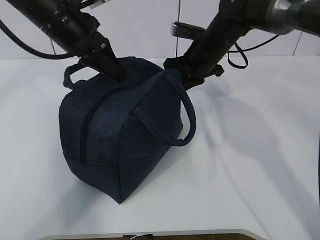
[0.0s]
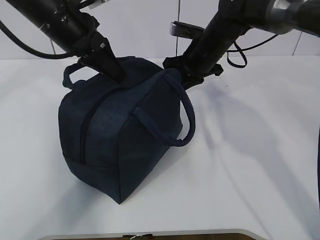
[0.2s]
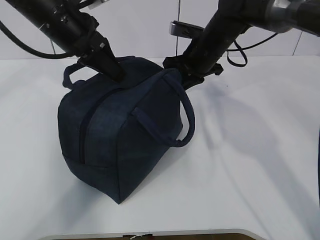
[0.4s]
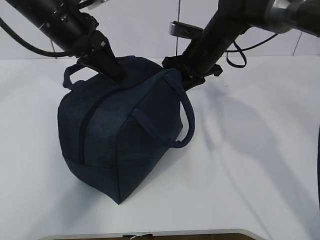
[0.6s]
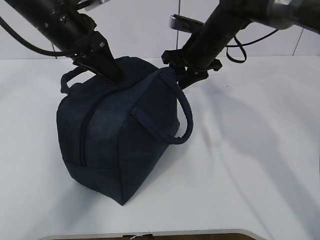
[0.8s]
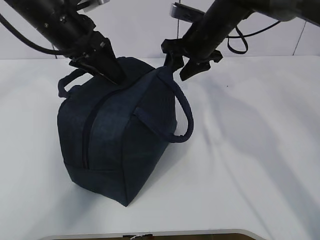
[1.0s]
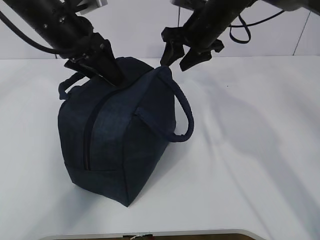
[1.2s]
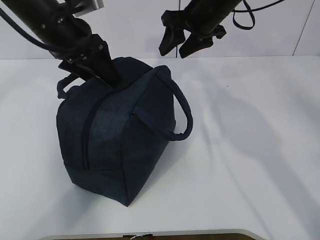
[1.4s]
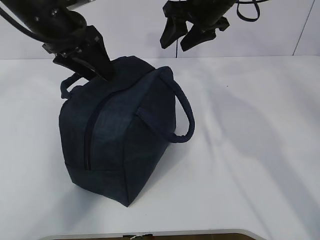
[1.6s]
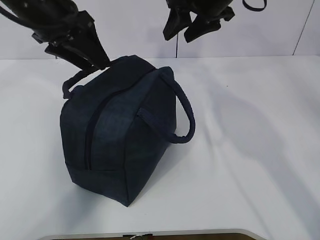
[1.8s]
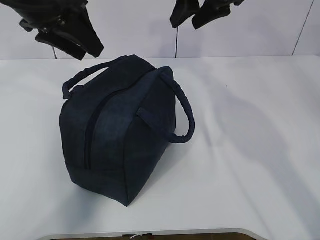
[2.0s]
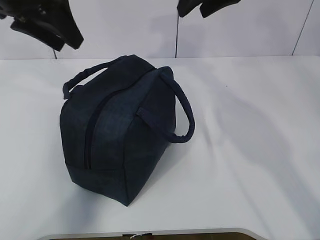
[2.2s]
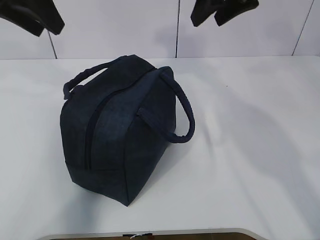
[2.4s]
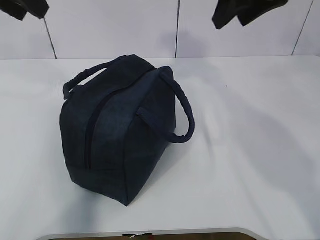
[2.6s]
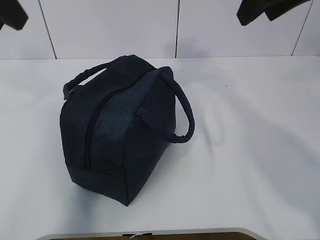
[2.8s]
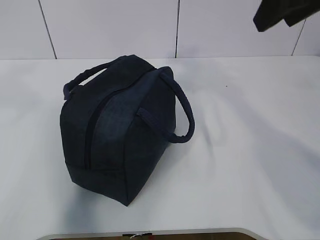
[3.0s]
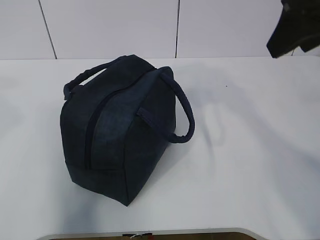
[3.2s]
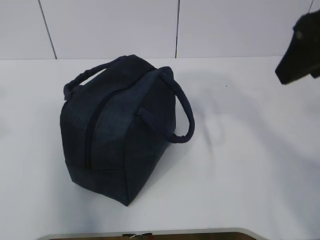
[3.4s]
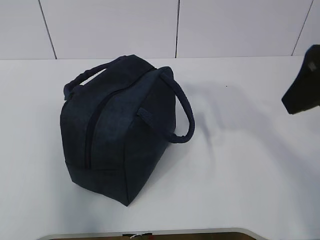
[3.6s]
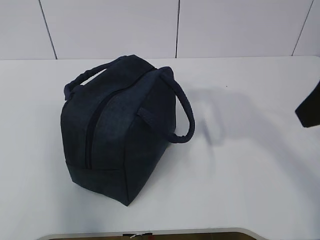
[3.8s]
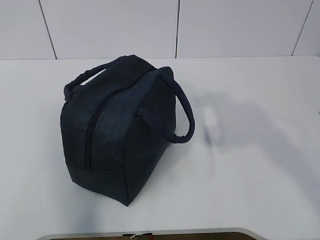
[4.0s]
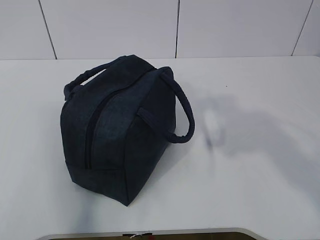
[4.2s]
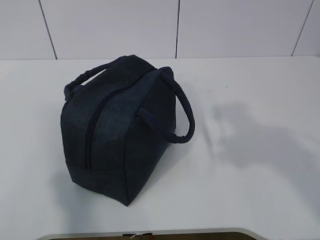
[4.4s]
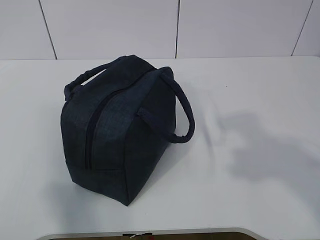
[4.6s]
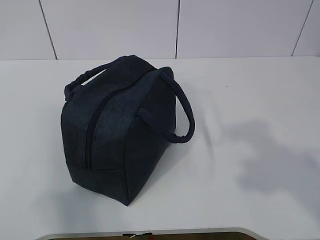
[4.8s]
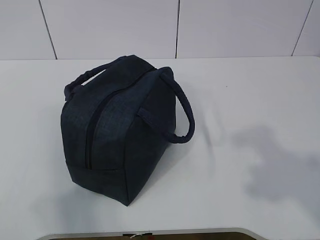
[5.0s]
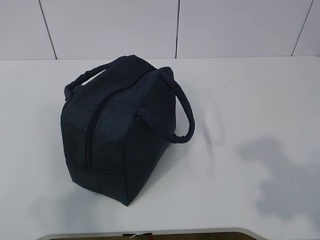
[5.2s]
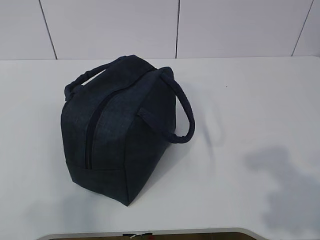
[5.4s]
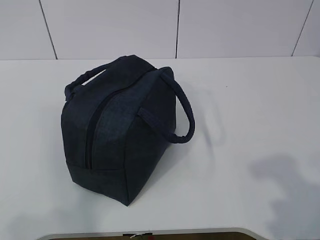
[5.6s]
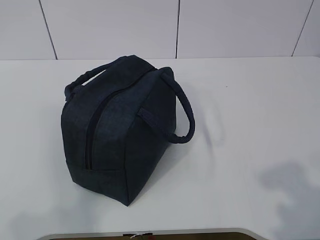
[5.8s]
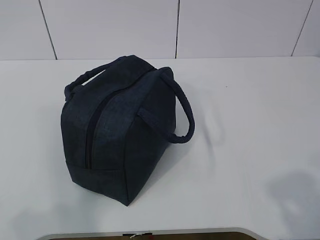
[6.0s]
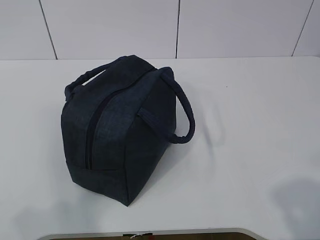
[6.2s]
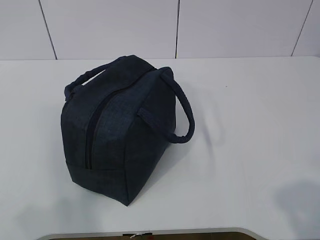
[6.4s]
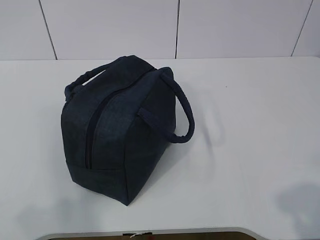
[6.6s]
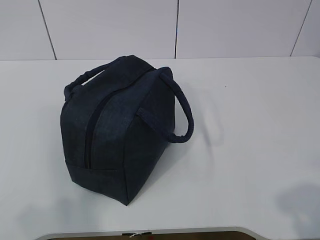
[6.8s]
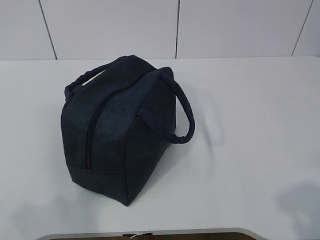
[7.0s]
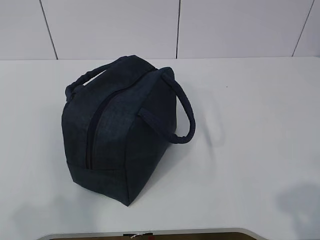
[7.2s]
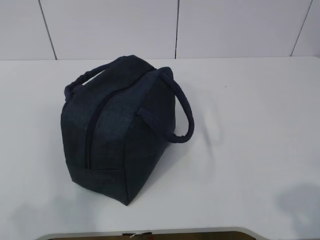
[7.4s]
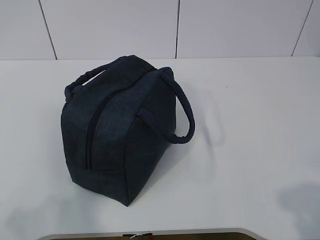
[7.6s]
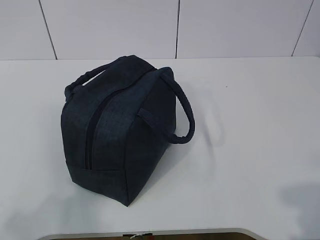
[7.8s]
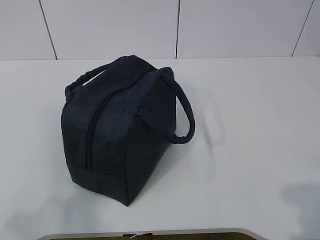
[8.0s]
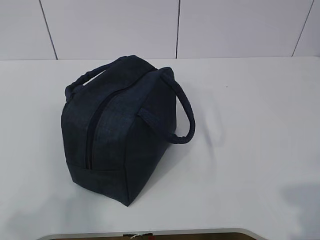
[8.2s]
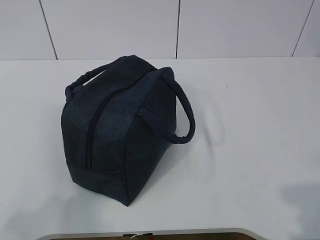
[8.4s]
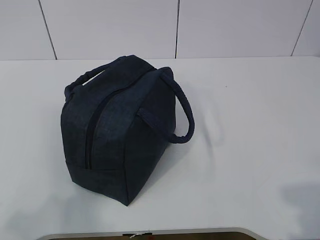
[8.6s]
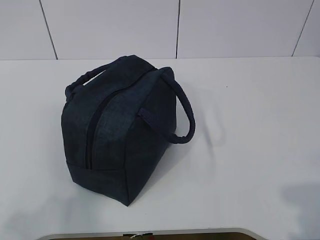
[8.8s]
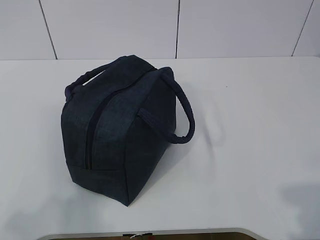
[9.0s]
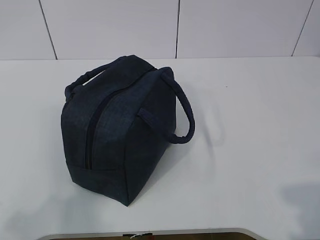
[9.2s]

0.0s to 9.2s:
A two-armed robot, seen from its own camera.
0.0s to 1.6s: The right gripper goes about 10 cm upward, and opens up; the left gripper opens.
1.6s to 3.0s: The right gripper shifts about 20 cm backward, upward and to the right. The left gripper goes about 20 cm backward, upward and to the left.
3.0s to 4.6s: Both grippers travel together backward, approximately 20 cm.
4.6s to 6.2s: The right gripper moves backward and downward, some 10 cm.
